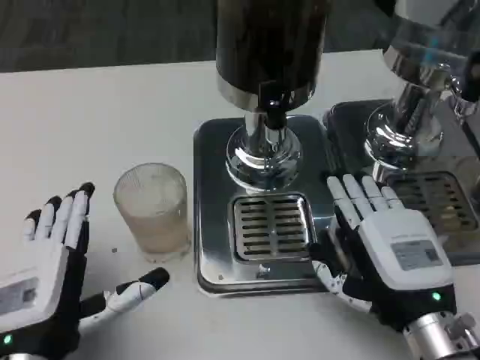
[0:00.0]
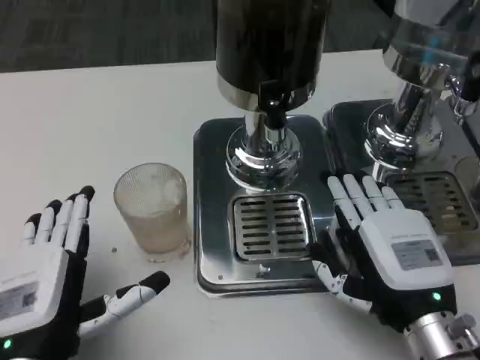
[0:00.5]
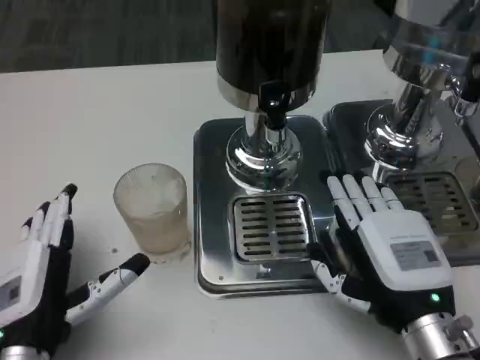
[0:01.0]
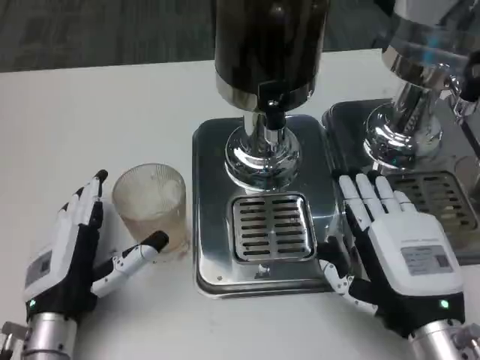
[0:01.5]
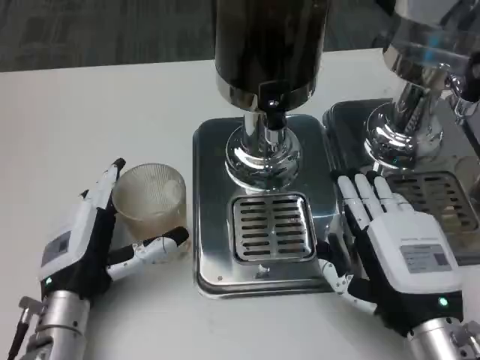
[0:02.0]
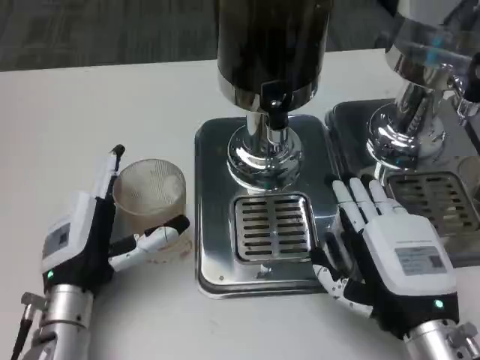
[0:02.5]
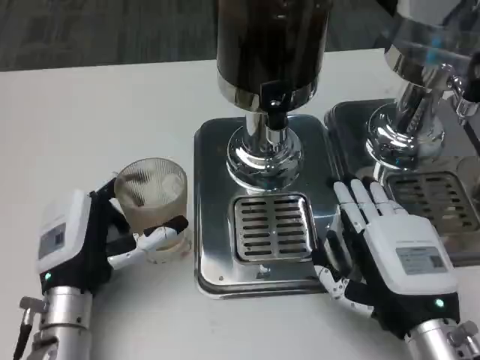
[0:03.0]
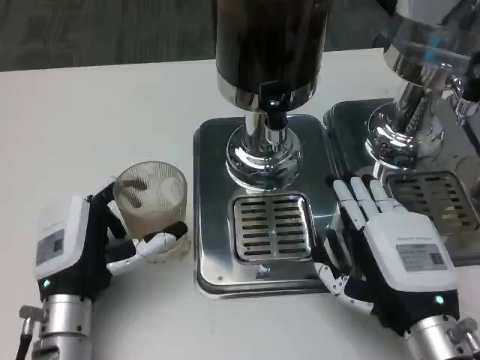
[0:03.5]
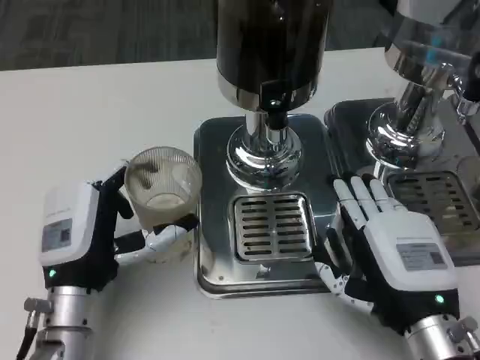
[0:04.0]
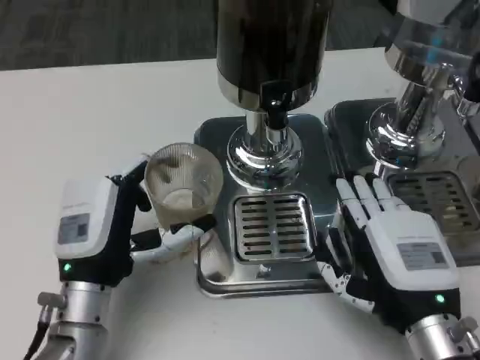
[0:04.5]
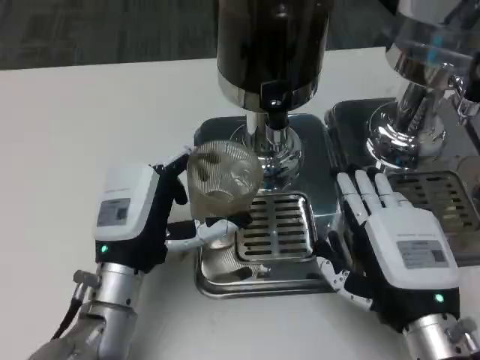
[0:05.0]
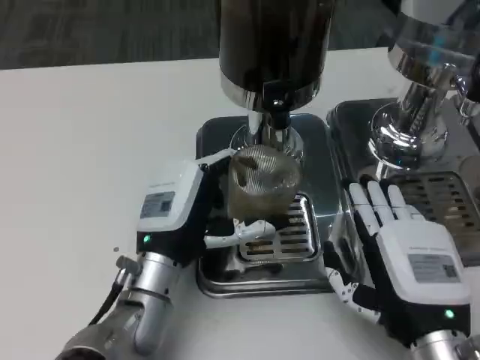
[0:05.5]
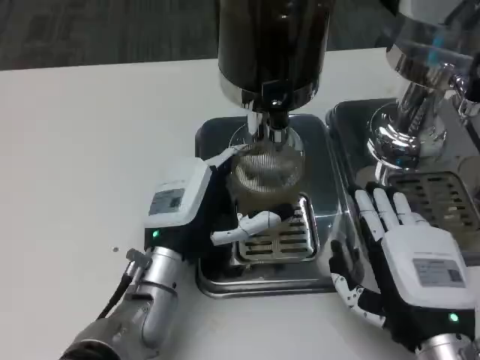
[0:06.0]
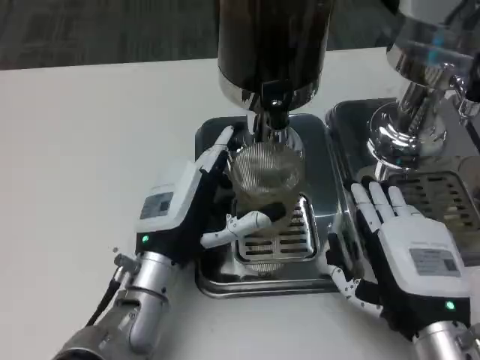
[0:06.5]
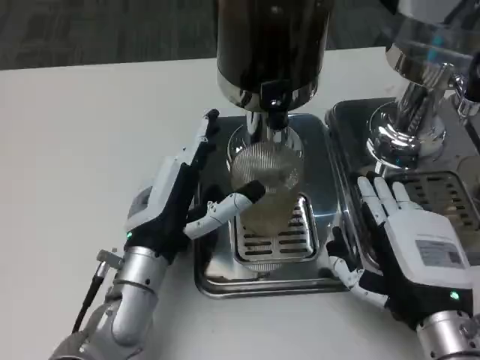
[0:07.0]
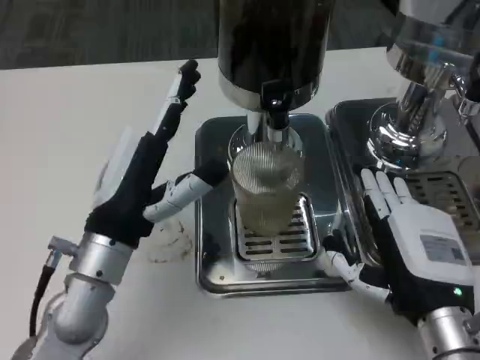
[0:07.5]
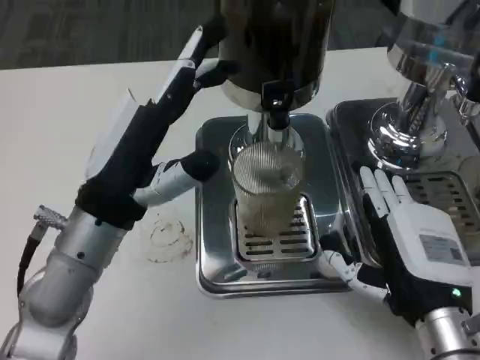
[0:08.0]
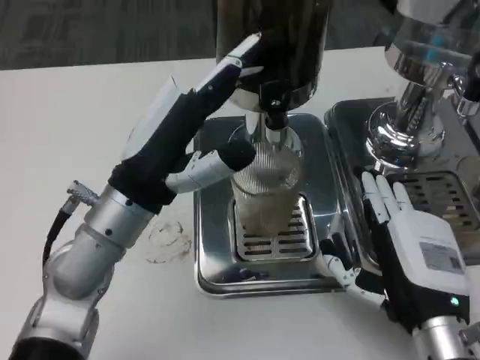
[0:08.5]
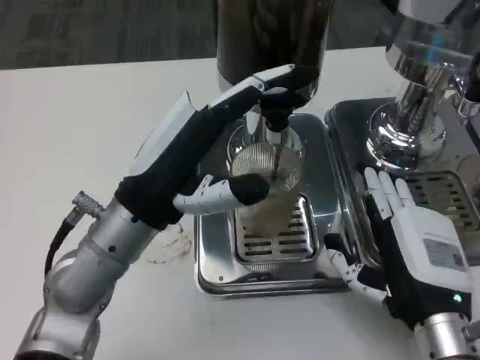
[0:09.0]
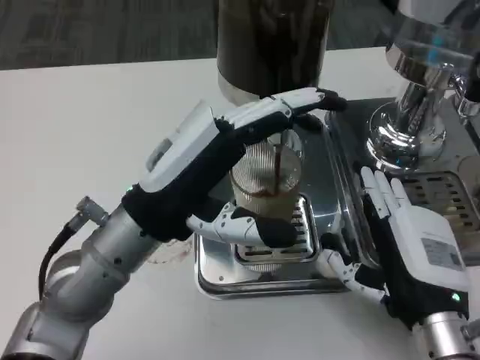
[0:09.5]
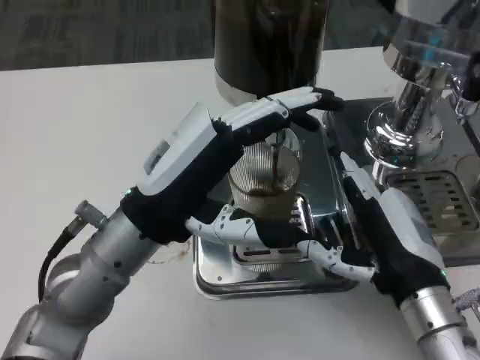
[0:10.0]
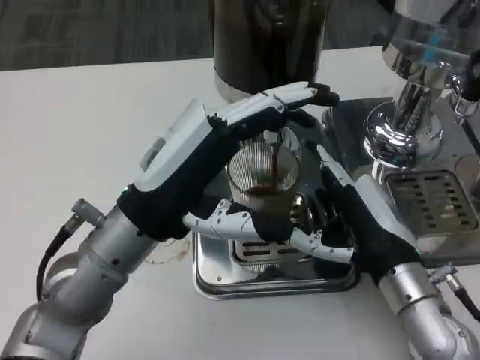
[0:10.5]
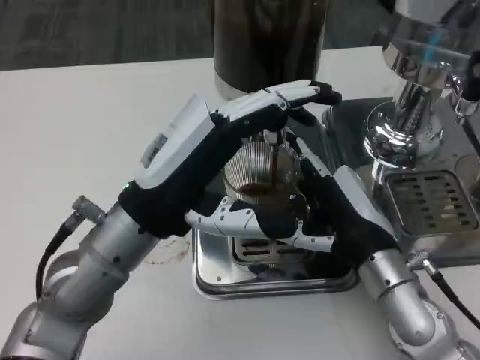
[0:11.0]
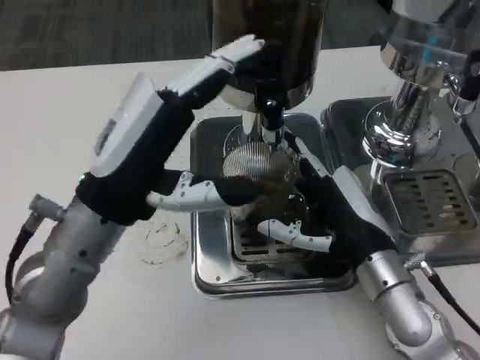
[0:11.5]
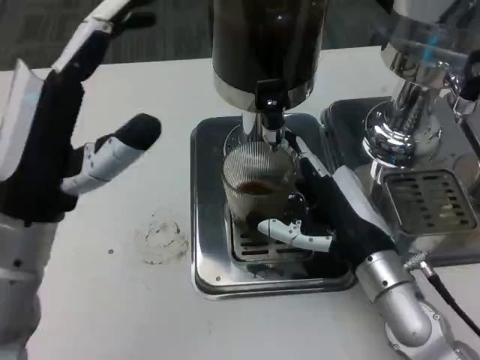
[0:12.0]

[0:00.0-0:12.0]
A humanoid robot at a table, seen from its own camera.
Task of the whole recording: Grasp the cup under the faucet to collect the drink, then remove the cup.
0:00.0 to 0:02.0: The left hand shifts about 10 cm forward.
0:04.0 to 0:06.0: The left hand travels to the right by some 10 cm.
0:06.0 to 0:08.0: The left hand heads upward and to the left, covering about 10 cm.
0:10.0 to 0:12.0: The left hand heads to the left, covering roughly 5 cm. Meanwhile the right hand ends up some 5 cm from where it was.

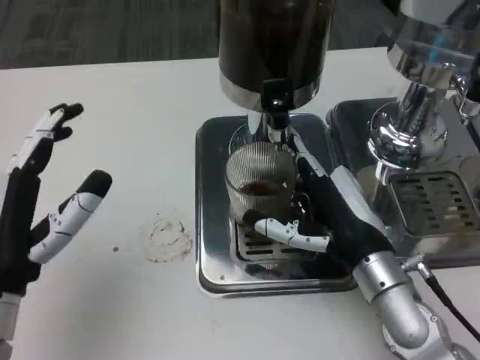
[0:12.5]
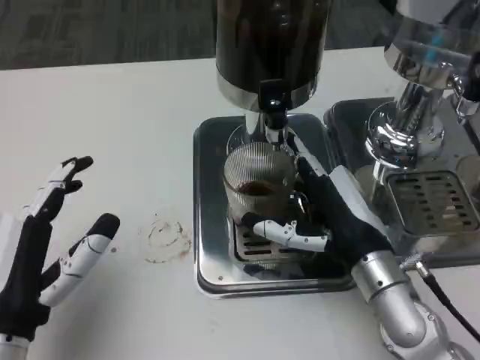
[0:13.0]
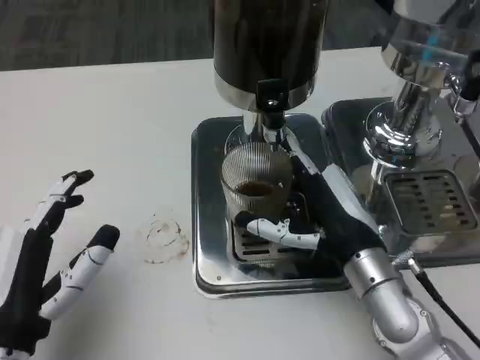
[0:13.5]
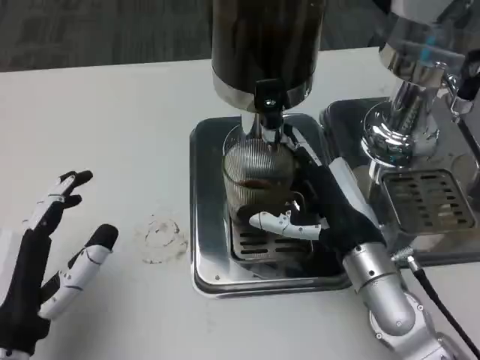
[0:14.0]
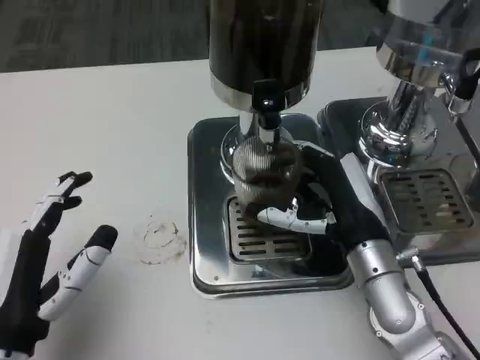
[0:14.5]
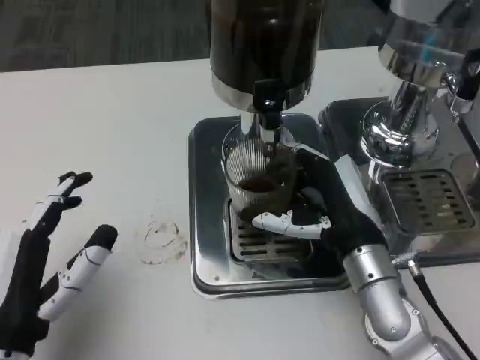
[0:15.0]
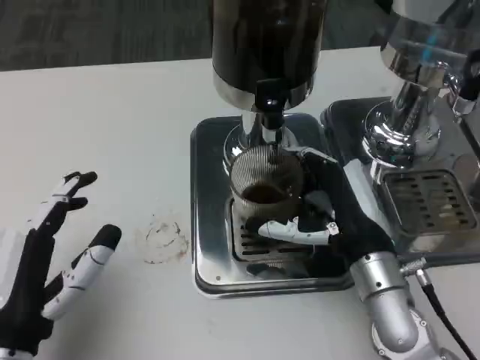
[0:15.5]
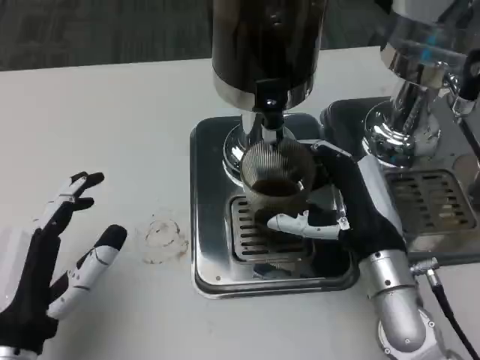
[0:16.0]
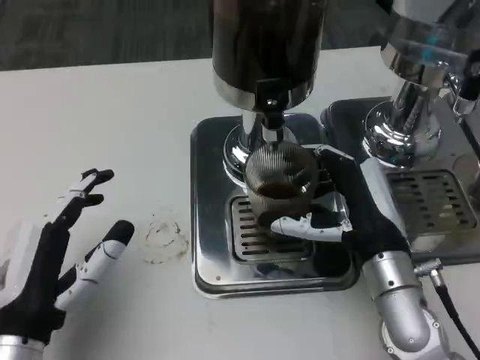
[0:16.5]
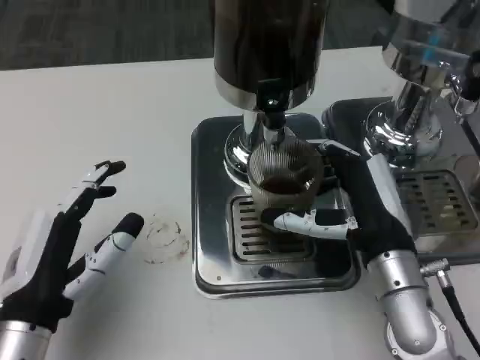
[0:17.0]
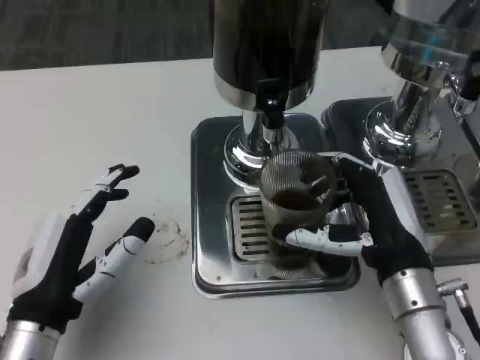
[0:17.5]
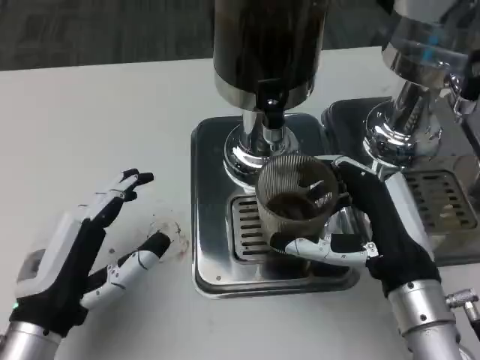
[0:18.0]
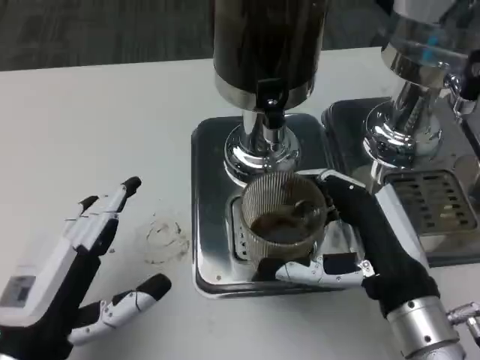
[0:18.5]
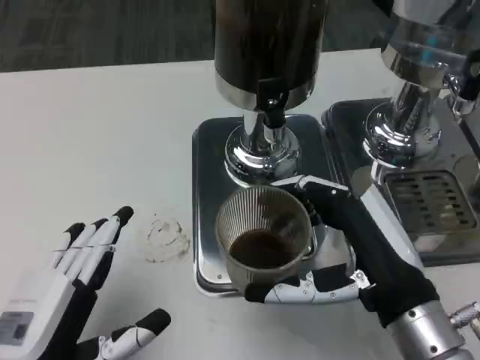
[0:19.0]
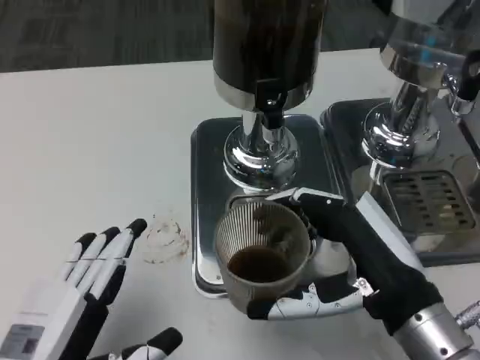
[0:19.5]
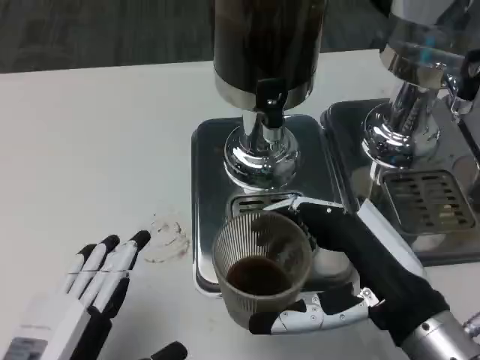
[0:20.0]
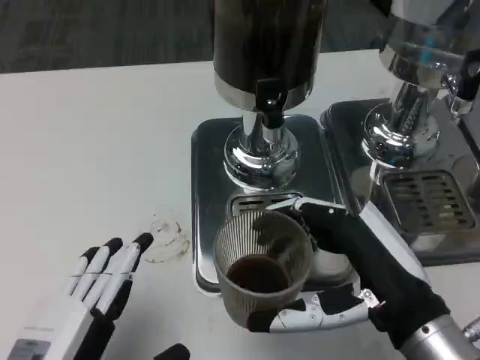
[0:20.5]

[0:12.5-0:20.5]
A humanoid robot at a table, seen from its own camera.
Task of the whole recording: Grasp the cup under the faucet to collect the drink, then remove the cup.
0:16.5 to 0:18.5: The right hand moves backward, roughly 5 cm.
0:18.5 to 0:20.5: The left hand is displaced backward by approximately 5 cm.

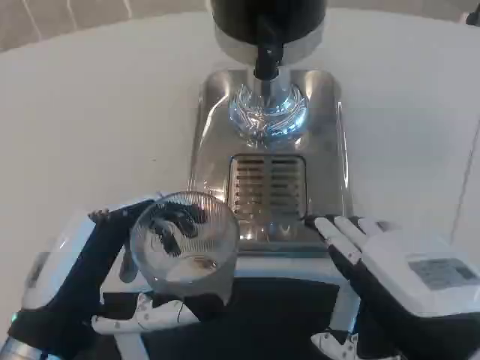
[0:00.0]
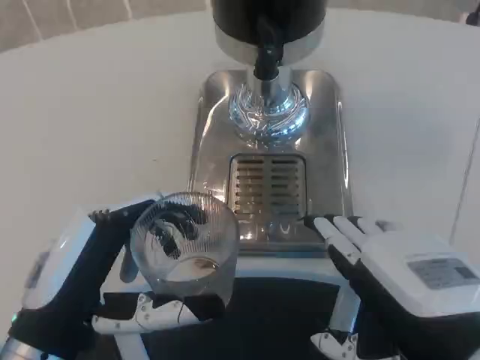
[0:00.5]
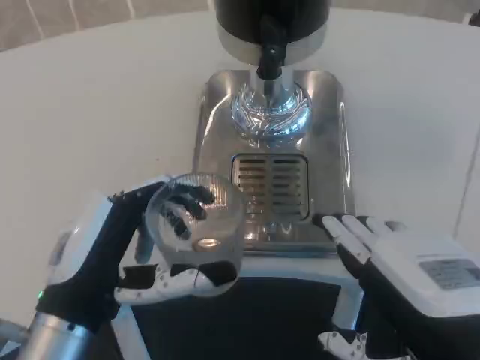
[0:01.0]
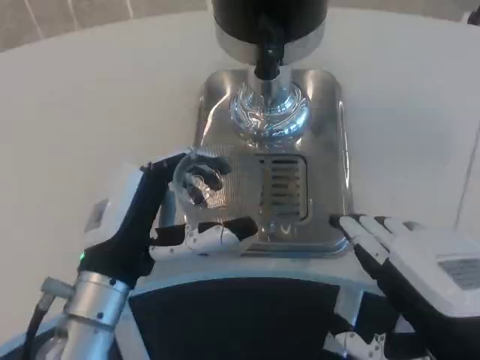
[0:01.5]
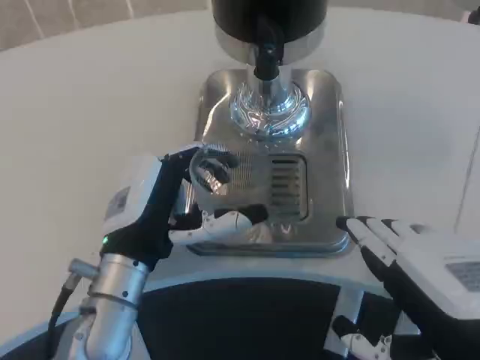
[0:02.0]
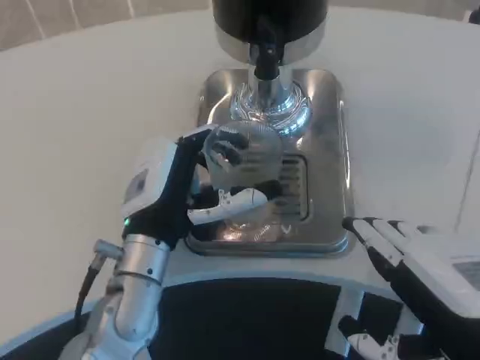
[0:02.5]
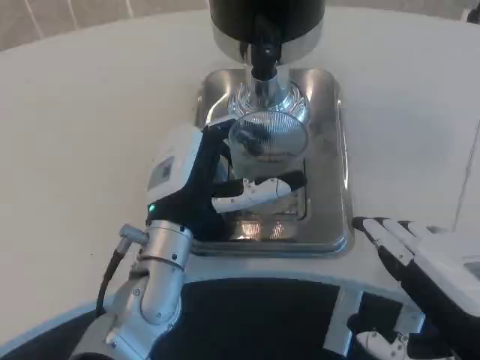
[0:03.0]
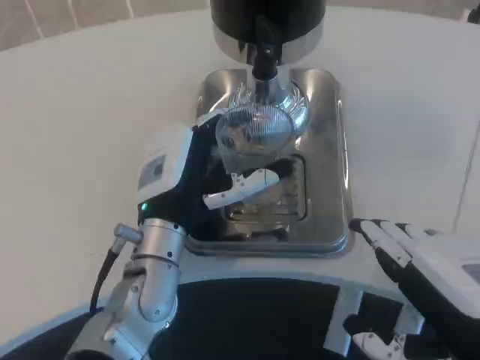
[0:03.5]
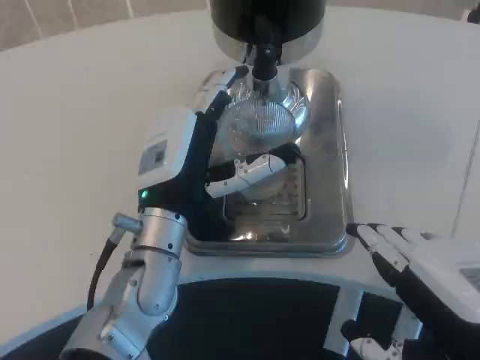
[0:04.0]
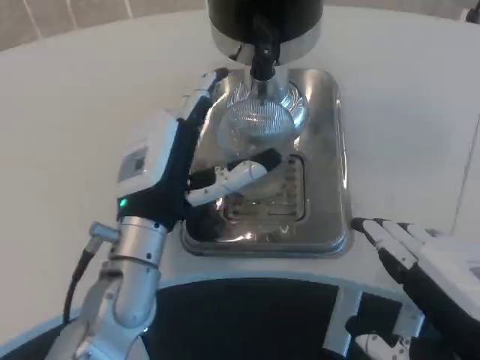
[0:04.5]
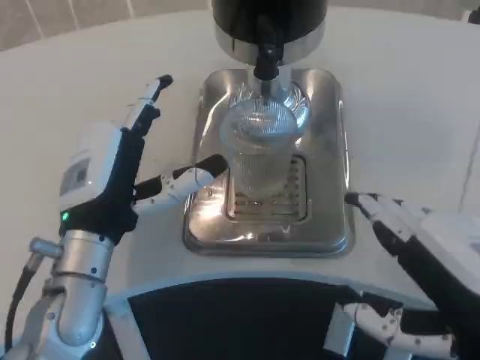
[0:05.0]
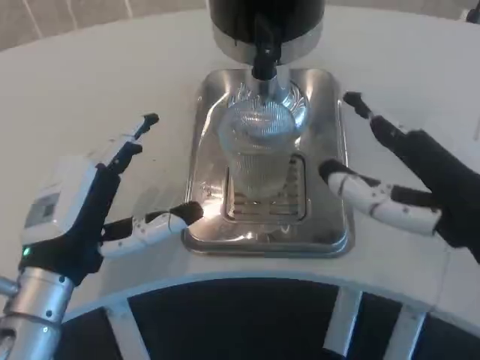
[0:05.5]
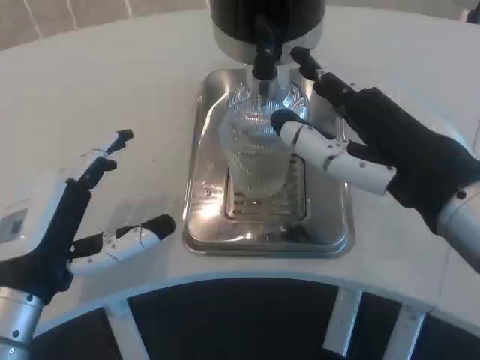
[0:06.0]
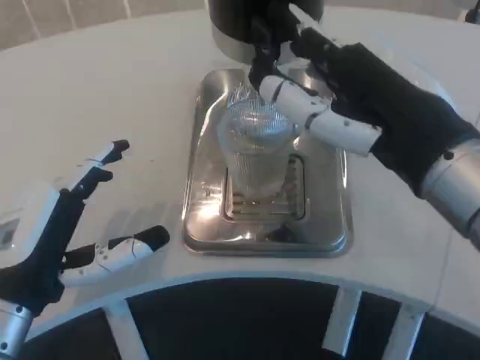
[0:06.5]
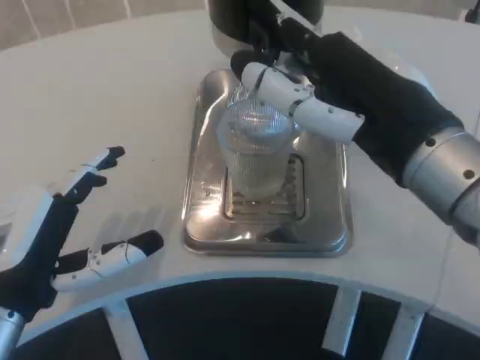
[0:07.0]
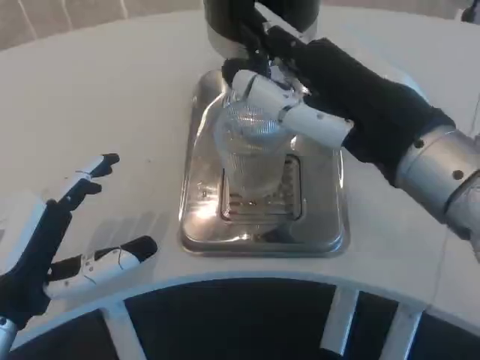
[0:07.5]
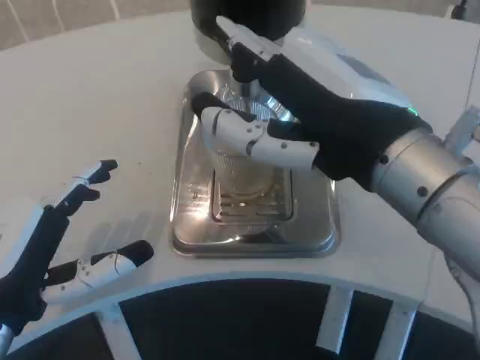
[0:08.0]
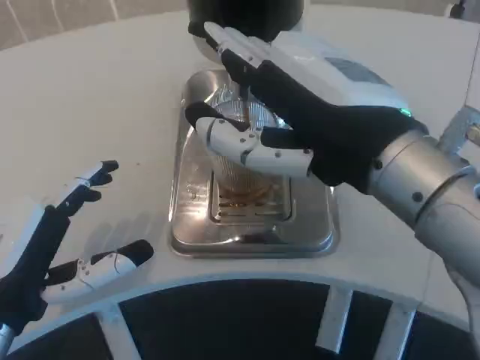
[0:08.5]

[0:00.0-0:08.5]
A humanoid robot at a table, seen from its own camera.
Task of the whole recording: Grasp the cup under the faucet to collect the drink, then remove the cup.
0:00.0 to 0:02.0: The left hand heads forward and to the right, covering roughly 10 cm.
0:02.0 to 0:04.0: The left hand shifts by approximately 5 cm.
0:04.0 to 0:06.5: The left hand is displaced to the left and backward by approximately 15 cm. The right hand shifts about 10 cm forward and upward.
